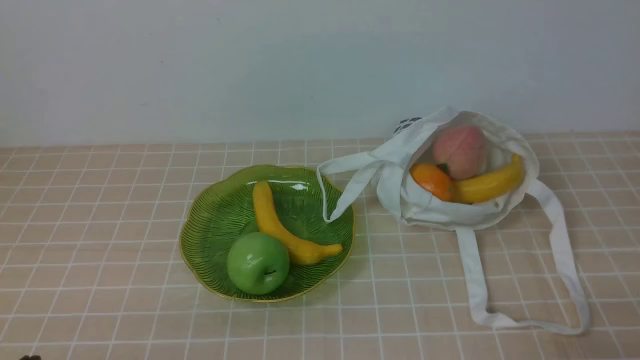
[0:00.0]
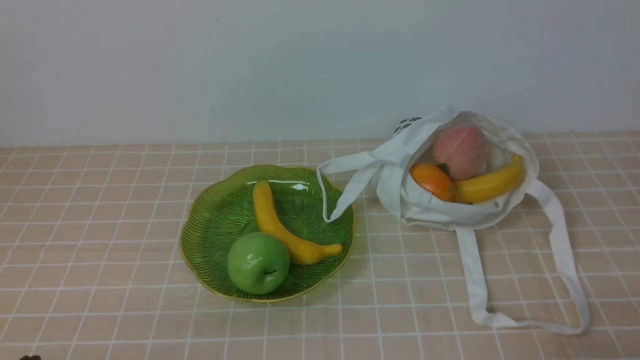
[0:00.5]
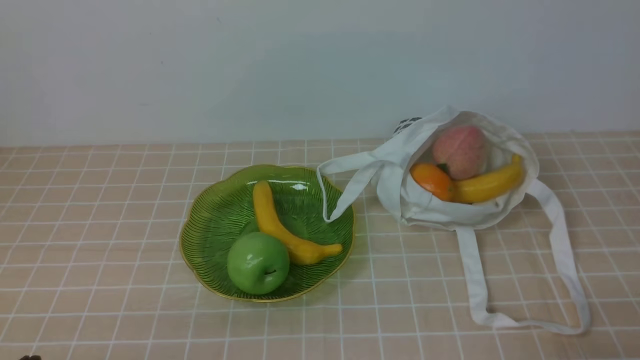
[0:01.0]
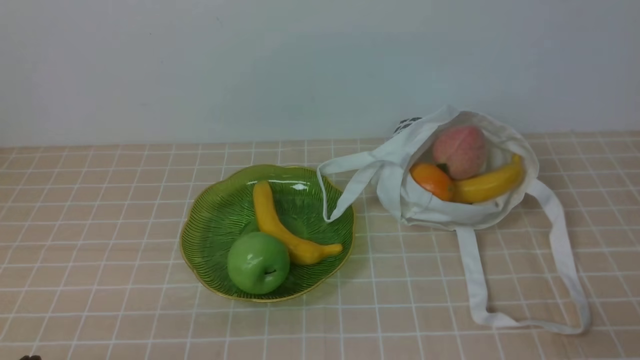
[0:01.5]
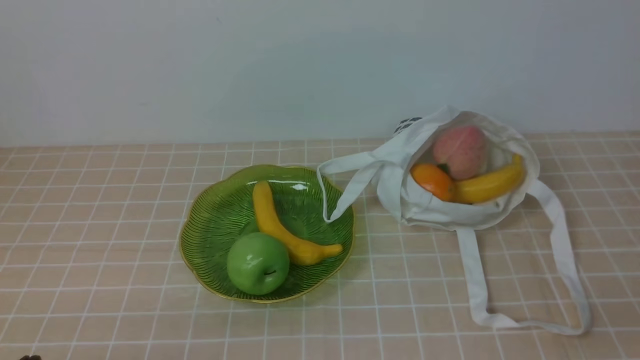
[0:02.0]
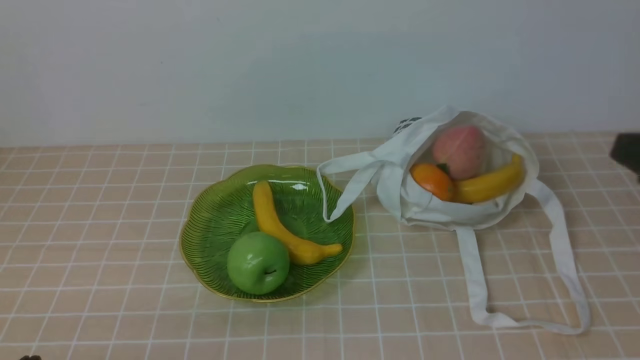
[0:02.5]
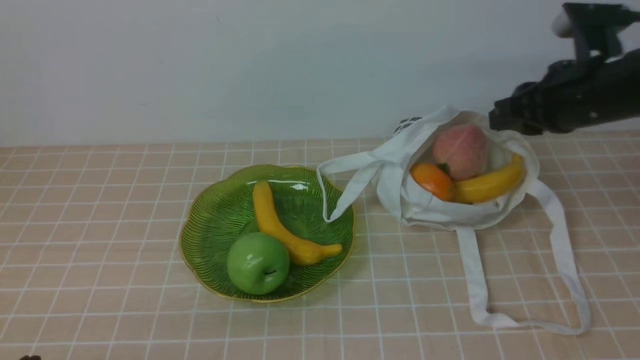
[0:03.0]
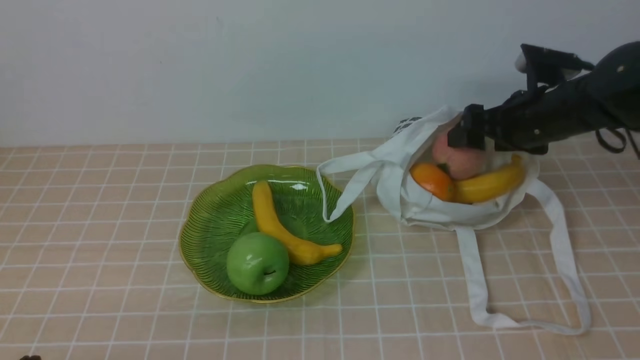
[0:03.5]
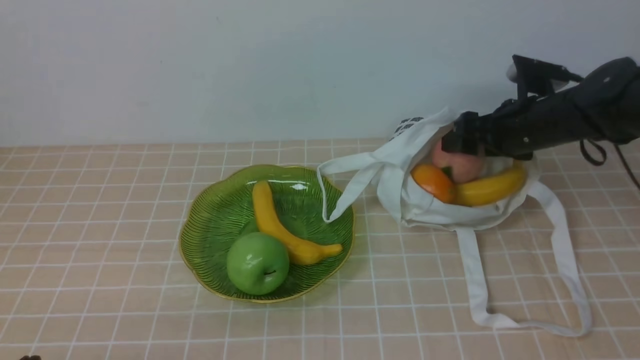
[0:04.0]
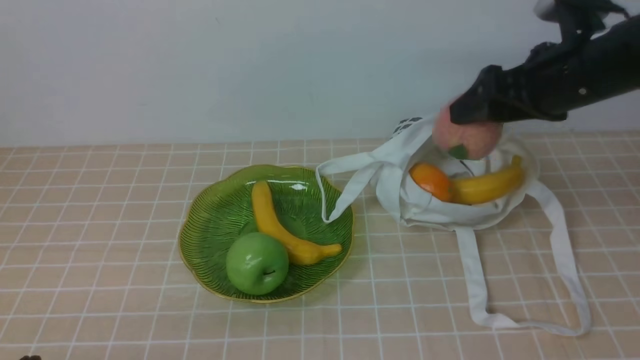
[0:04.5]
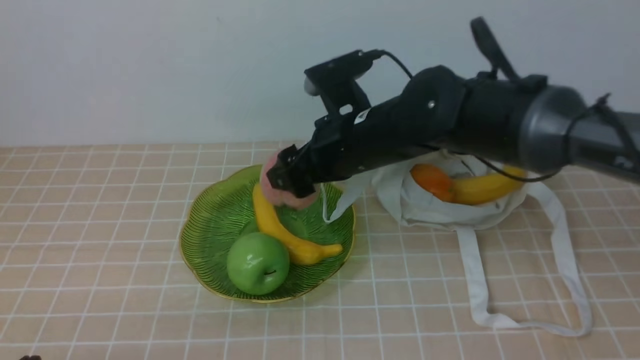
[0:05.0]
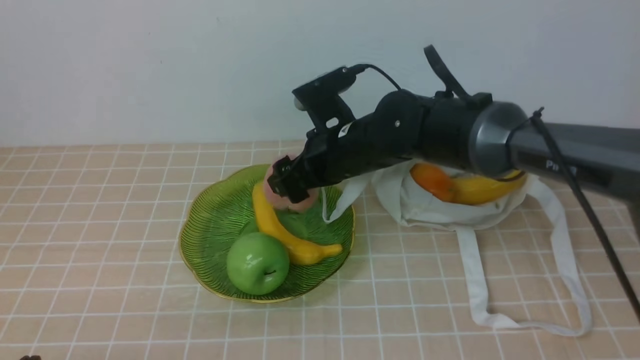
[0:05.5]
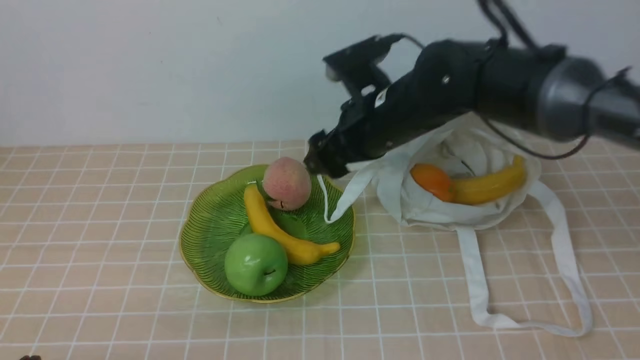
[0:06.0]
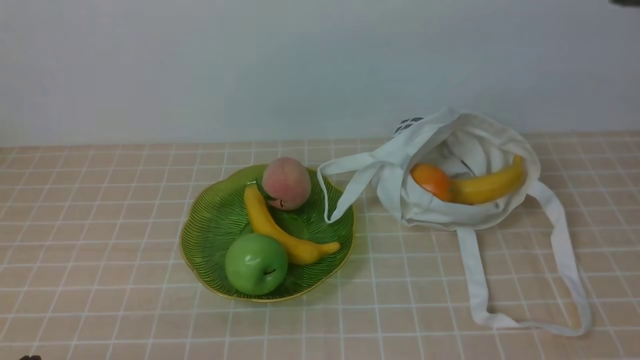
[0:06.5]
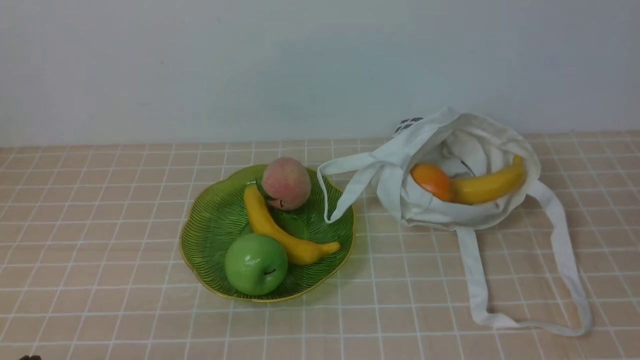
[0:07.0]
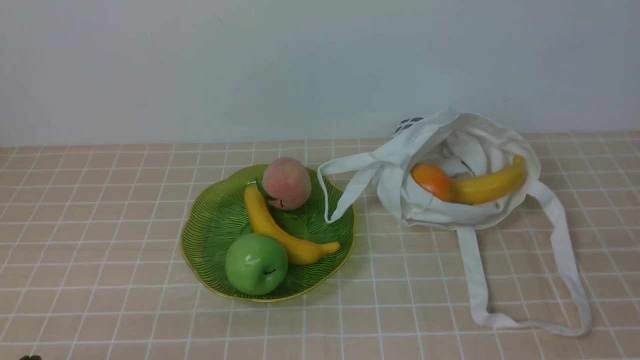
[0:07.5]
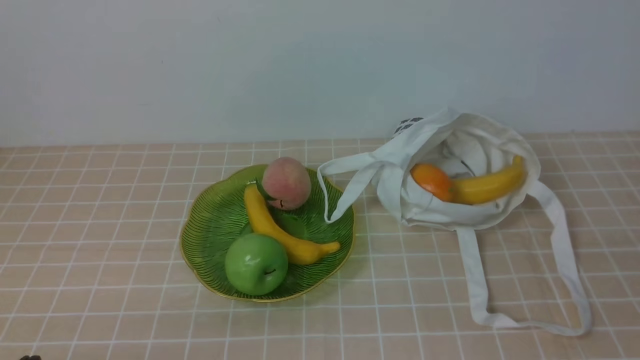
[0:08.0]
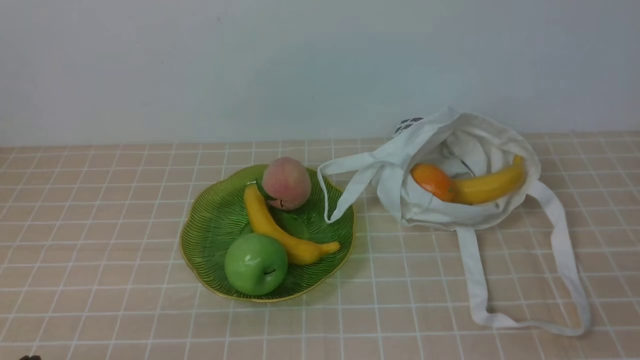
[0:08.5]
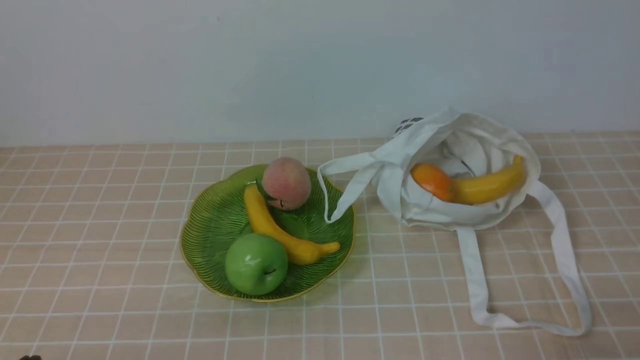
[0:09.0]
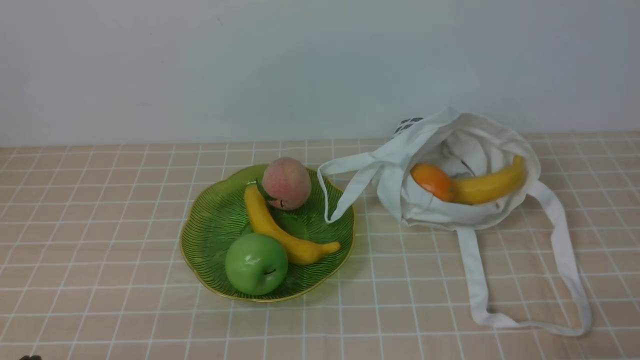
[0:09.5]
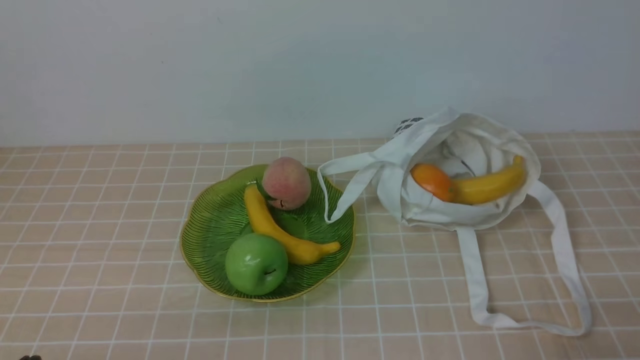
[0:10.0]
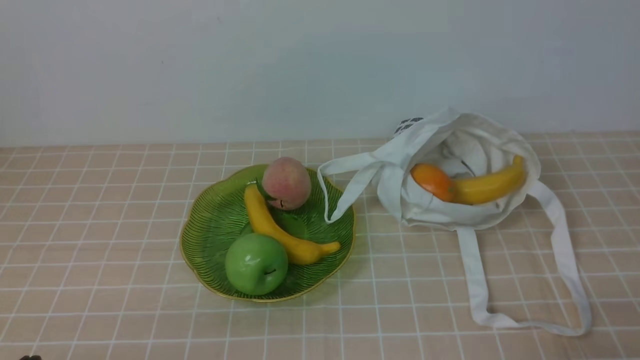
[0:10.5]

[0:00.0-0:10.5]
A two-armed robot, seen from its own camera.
Step, 0:00.0 to 0:04.0: use the right arm to grab a peach from the bag.
Step, 0:04.5 to 0:05.5: use the right arm to put the peach into the empty plate on the left.
0:02.0 to 0:04.0: The right gripper moves forward, roughly 35 cm, and opens its fingers.
0:04.0 to 0:06.5: The right gripper goes roughly 35 cm backward and upward, and closes its fingers.
